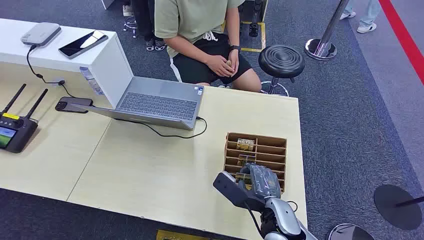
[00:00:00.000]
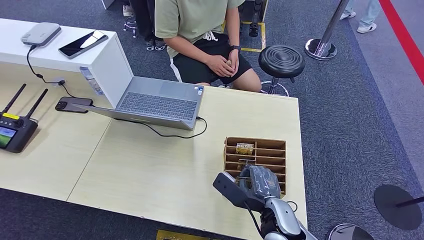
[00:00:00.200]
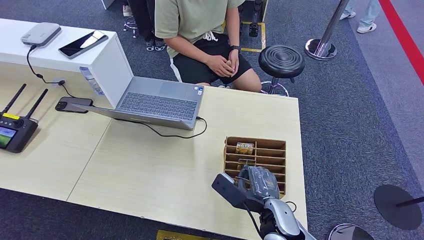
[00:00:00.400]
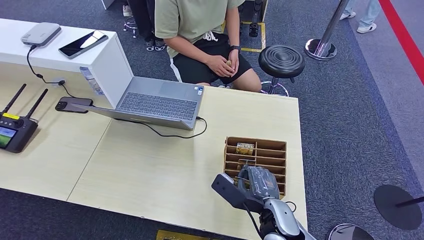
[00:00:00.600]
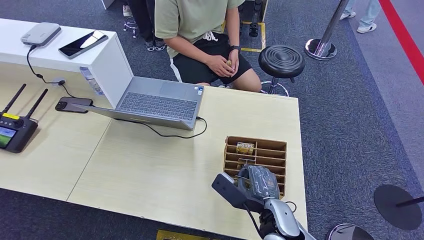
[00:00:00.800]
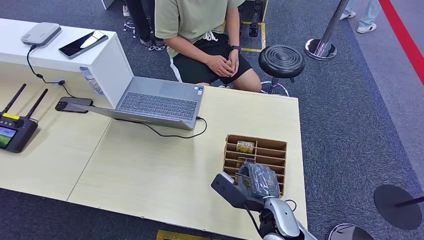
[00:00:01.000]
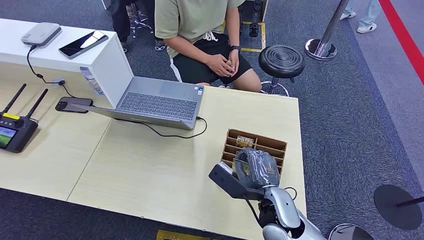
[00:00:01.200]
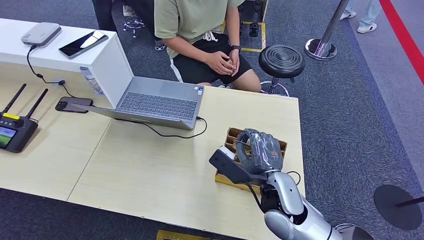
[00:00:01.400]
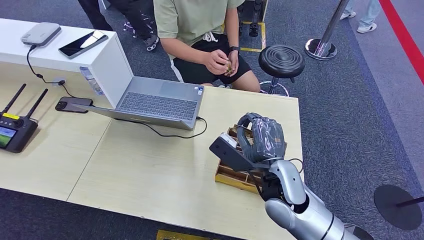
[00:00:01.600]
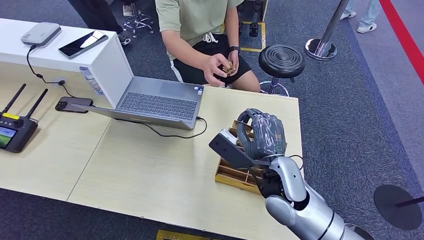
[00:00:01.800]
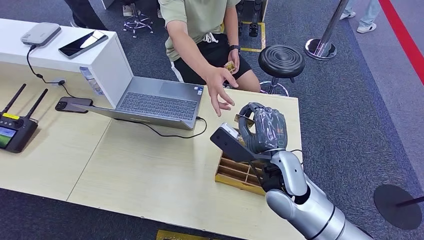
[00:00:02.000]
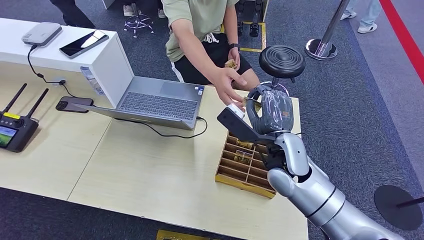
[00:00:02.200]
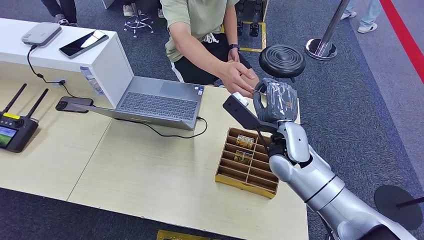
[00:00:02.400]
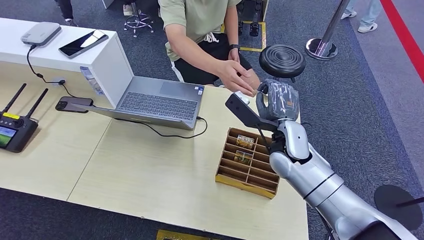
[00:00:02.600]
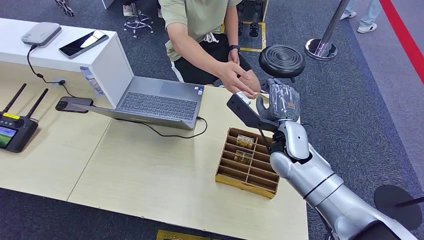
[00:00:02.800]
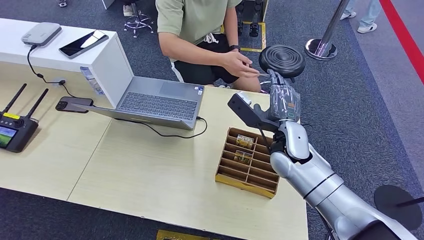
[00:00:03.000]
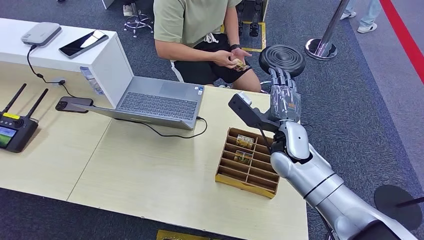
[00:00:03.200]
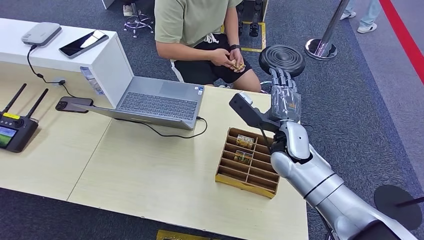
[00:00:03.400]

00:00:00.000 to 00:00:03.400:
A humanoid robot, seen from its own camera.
Step, 00:00:00.000 to 00:00:01.800: Pick up the key card from the card box.
Step, 00:00:02.000 to 00:00:03.400: Hand the key card to the target.
00:00:01.600 to 00:00:03.400: The right hand moves forward, roughly 10 cm.
